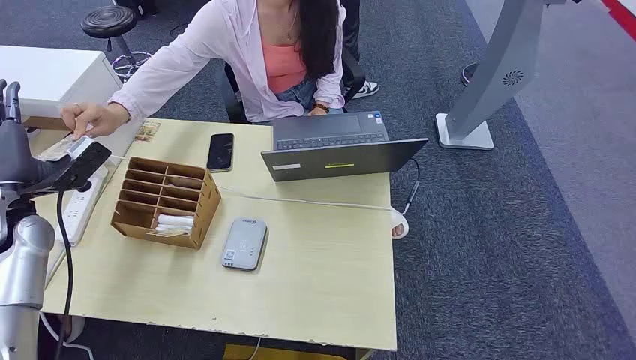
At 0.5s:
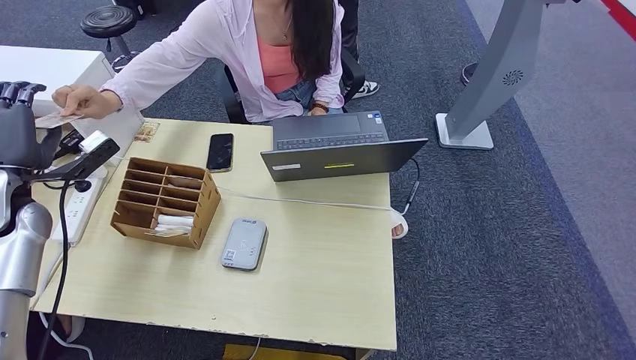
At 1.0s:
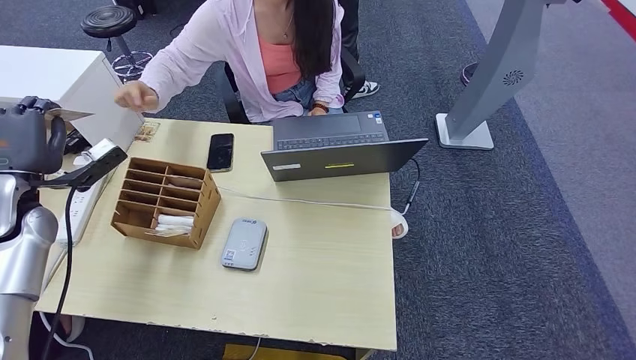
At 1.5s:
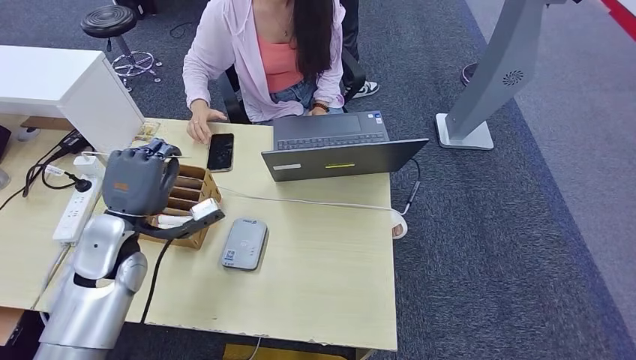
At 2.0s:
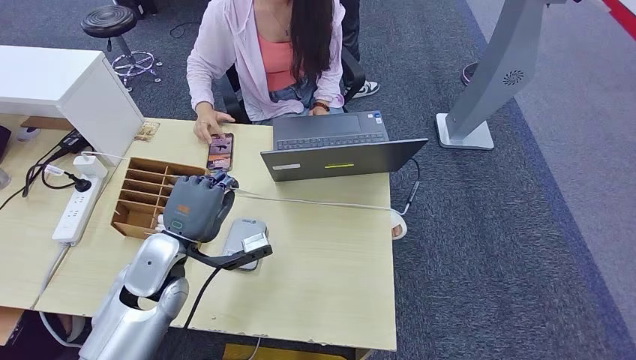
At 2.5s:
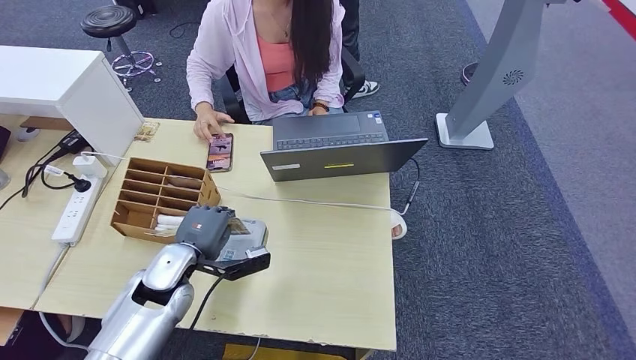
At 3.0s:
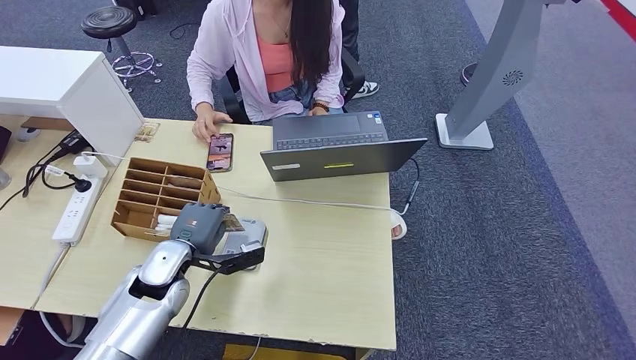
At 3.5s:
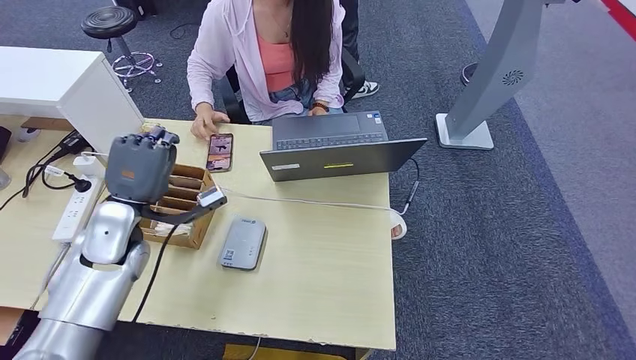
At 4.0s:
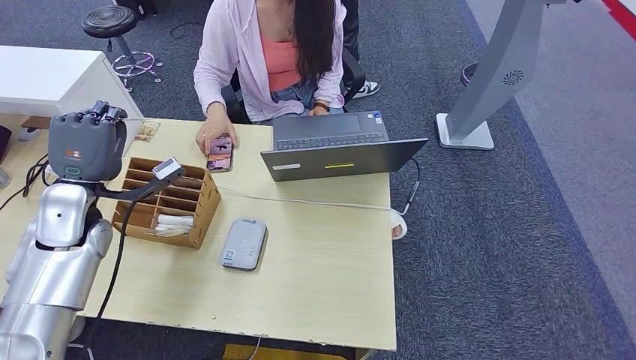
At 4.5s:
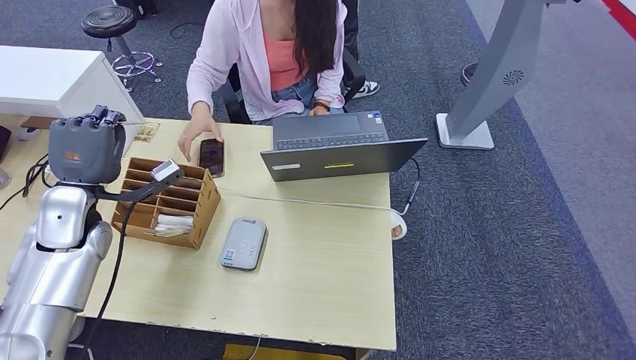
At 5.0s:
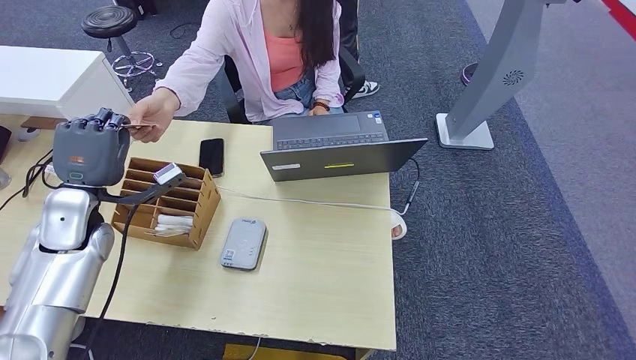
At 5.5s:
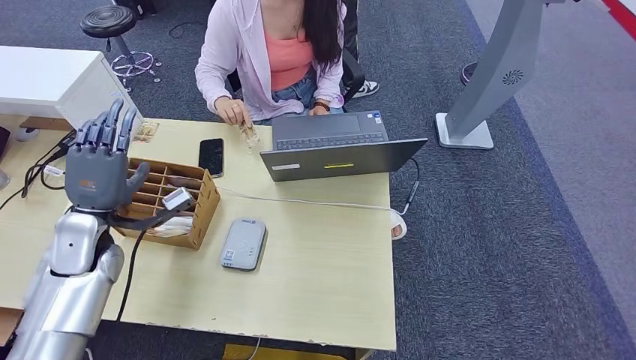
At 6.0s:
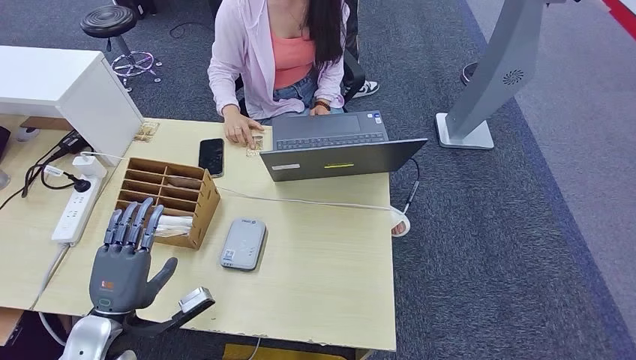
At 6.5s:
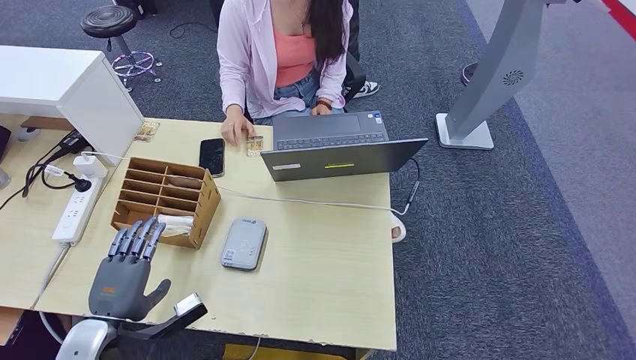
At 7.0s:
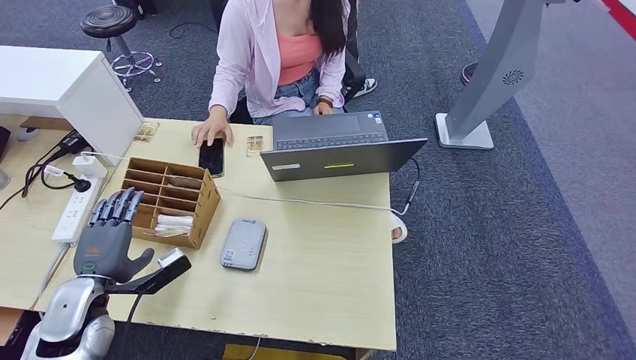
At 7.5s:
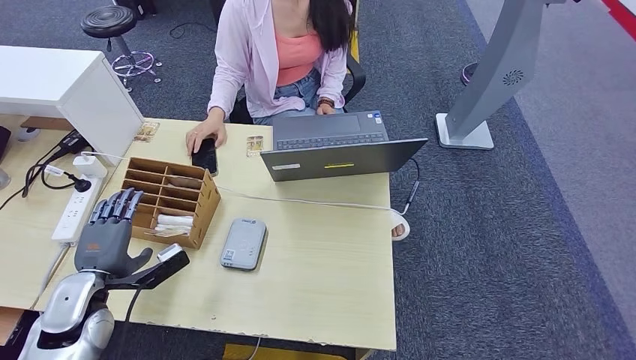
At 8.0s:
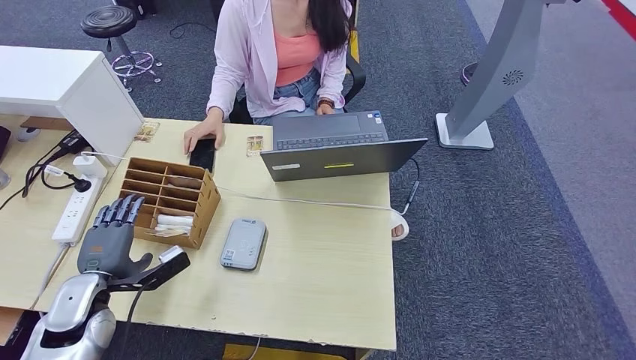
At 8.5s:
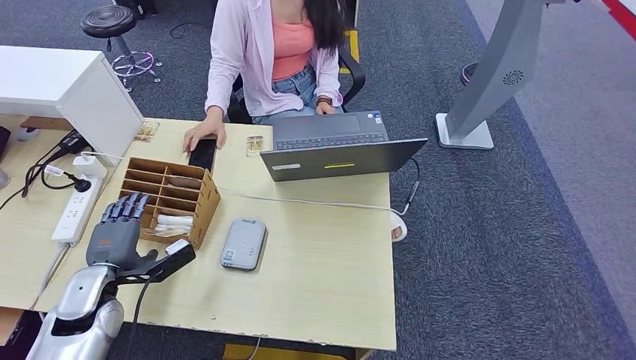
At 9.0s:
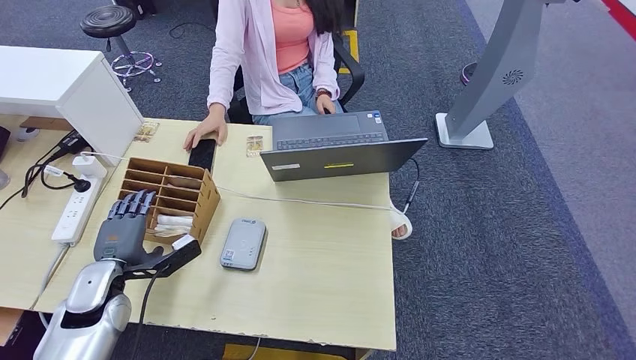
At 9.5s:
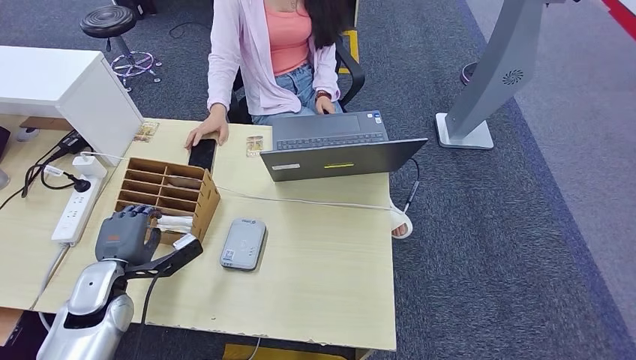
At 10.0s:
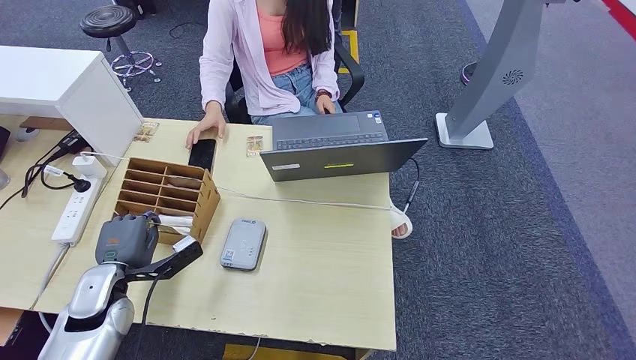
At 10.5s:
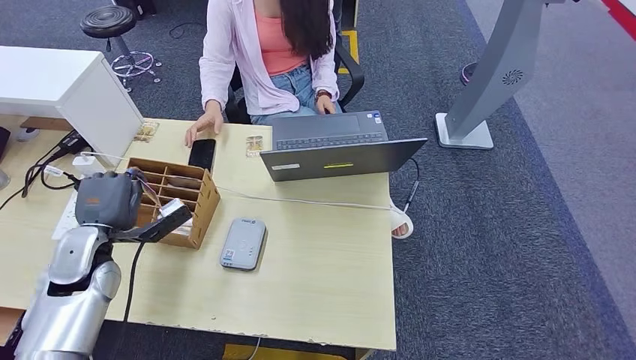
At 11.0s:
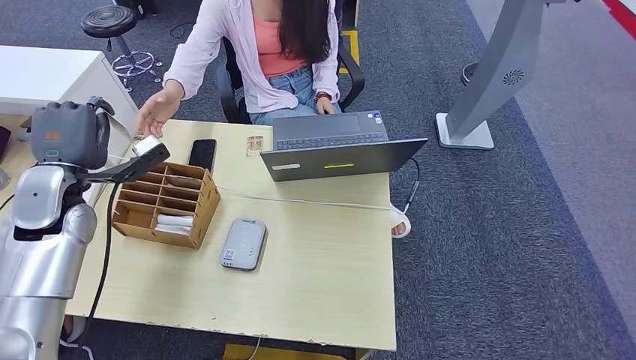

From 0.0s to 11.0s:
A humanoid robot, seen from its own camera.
Step, from 0.0s to 1.5s: Take the ID card from the person's hand.
Step, from 2.0s to 4.5s: Place the ID card on the card reader.
Step, from 5.0s to 8.0s: Hand the ID card to the person.
Step, from 8.5s to 11.0s: Pick up the room key from the key card box.
From 2.0s to 3.5s: The left hand moves forward, roughly 5 cm, and goes downward and returns, about 5 cm each way.
From 3.5s to 5.5s: The left hand moves to the left, some 5 cm.
From 5.5s to 7.5s: The left hand heads backward and downward, covering approximately 10 cm.
From 7.5s to 9.0s: The hands make only small movements.
From 9.0s to 11.0s: The left hand moves upward and forward, some 20 cm.

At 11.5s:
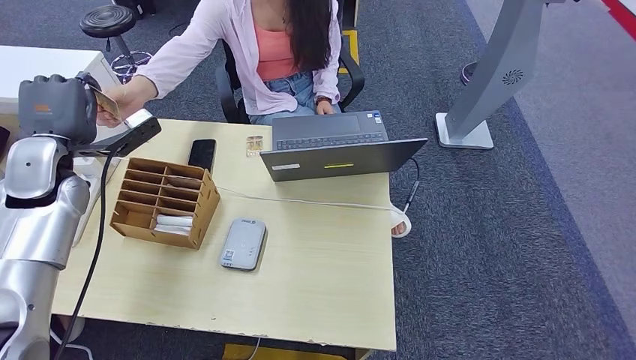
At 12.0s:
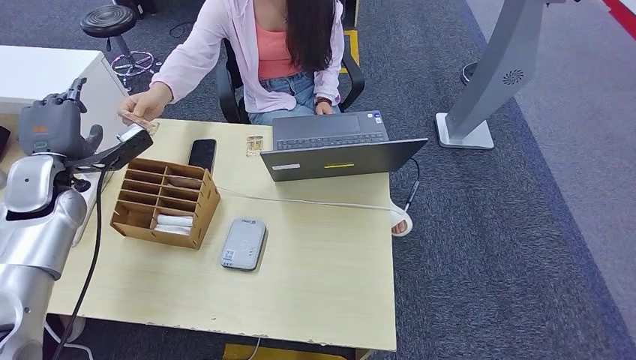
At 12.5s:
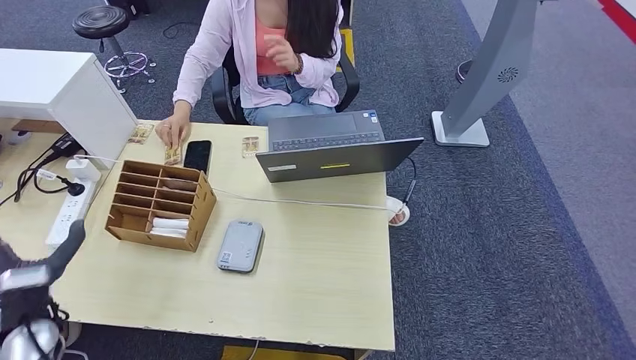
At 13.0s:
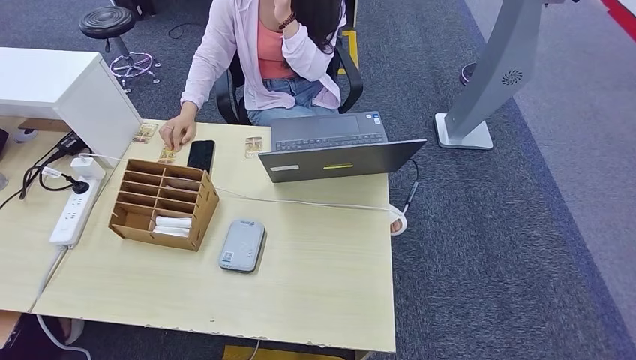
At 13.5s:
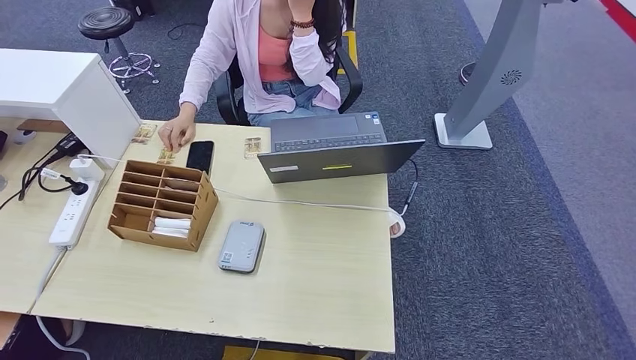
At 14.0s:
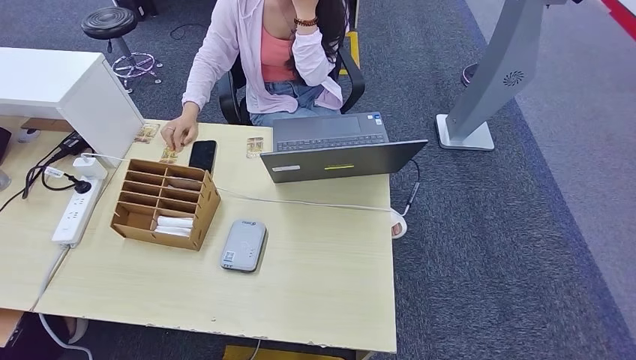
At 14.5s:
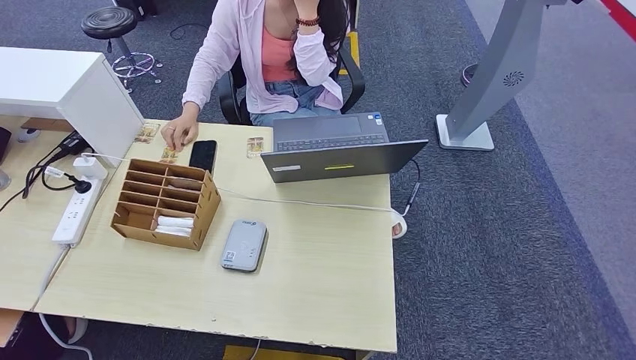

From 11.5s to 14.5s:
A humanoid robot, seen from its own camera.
Step, from 11.5s to 14.5s: Hand the room key to the person.
From 11.5s to 13.0s: The left hand shifts approximately 50 cm backward, downward and to the left.
From 13.0s to 14.5s: The left hand goes some 25 cm to the right and downward.
